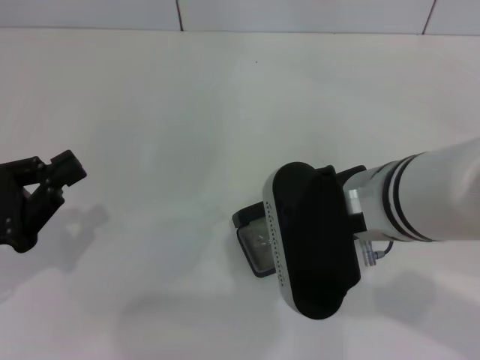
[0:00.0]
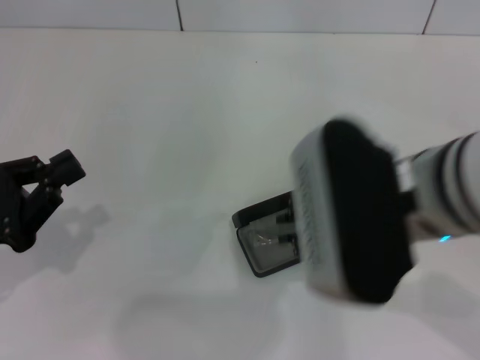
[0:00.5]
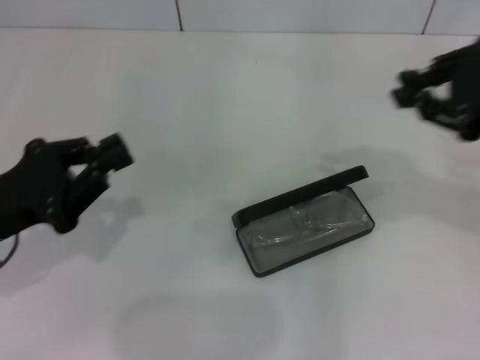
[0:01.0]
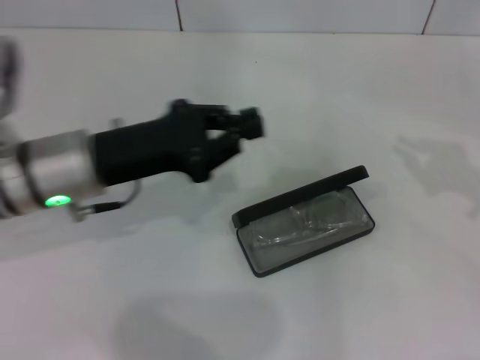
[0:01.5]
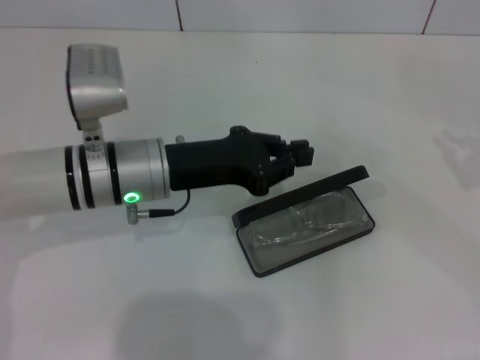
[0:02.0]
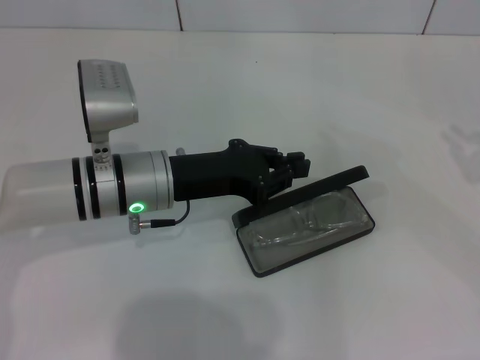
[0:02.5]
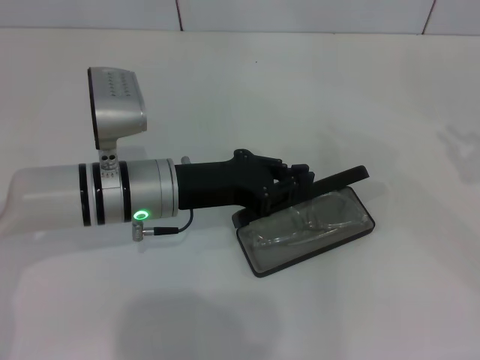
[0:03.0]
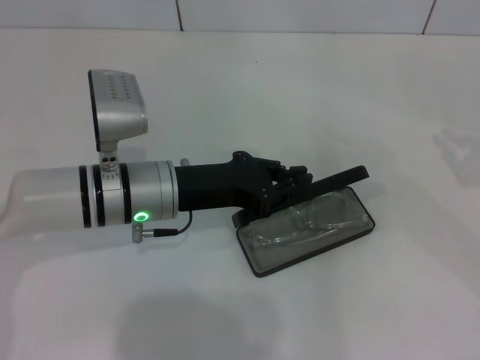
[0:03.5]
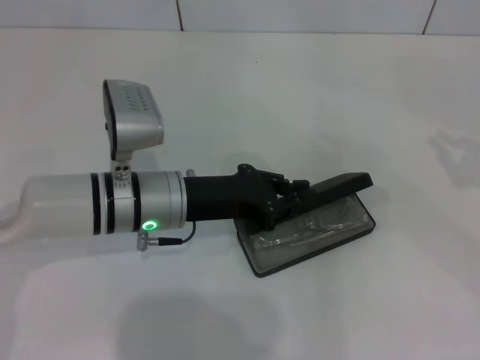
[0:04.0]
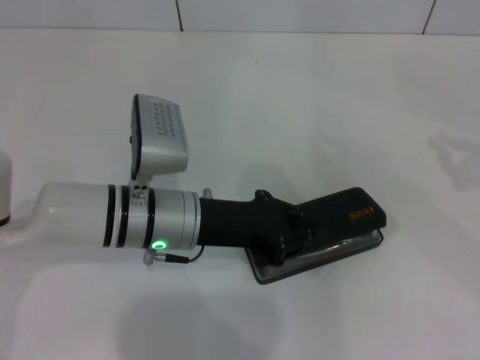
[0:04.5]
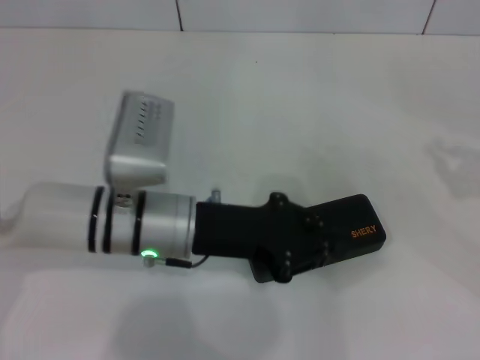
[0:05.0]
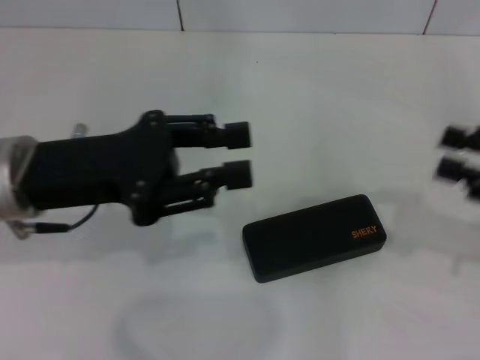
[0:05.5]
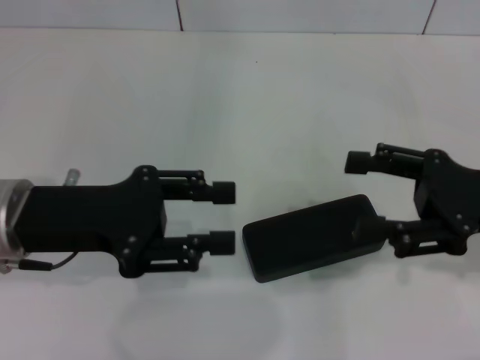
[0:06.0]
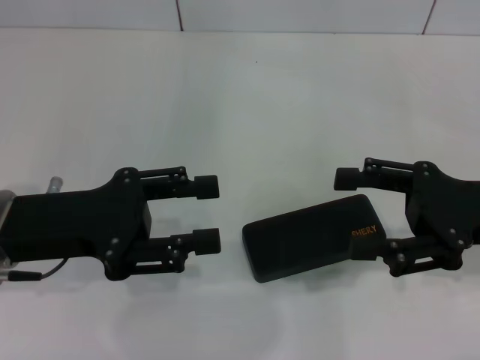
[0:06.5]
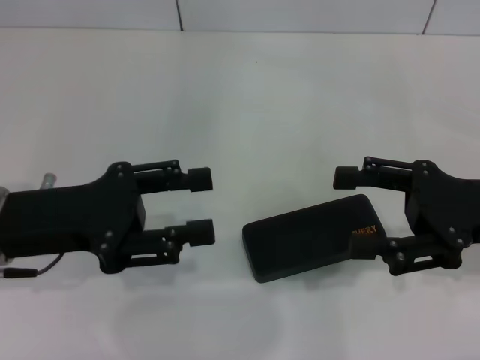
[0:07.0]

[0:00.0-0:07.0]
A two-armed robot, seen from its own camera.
Step, 0:00.0 to 0:04.5: Close the glasses case with your left hand.
0:00.0 to 0:02.0: The right gripper goes some 30 cm to the right. The left gripper moves to the right and forward, some 20 cm.
0:02.0 to 0:05.0: The grippers stay close to where they were, moving slightly.
0:05.0 to 0:07.0: The right gripper is displaced to the left by roughly 15 cm, and opens, while the left gripper moves to the left and upward, roughly 15 cm, and opens up.

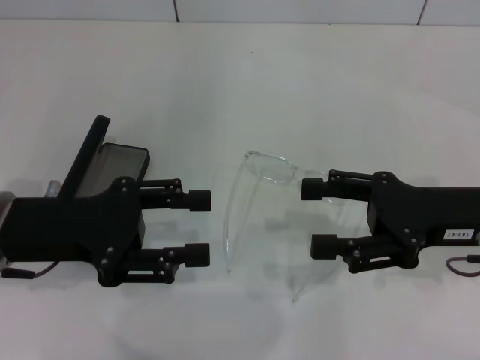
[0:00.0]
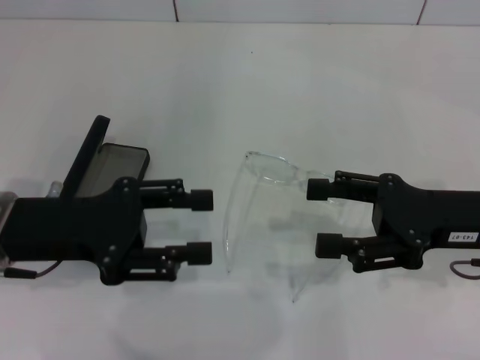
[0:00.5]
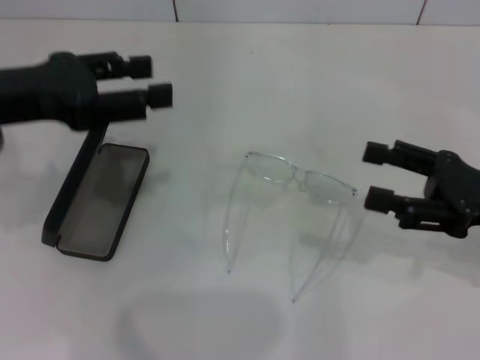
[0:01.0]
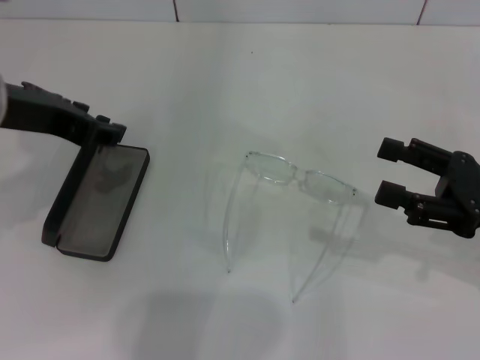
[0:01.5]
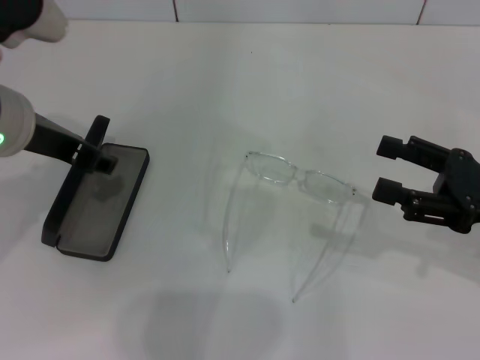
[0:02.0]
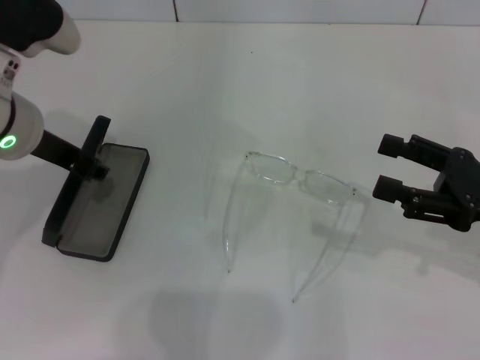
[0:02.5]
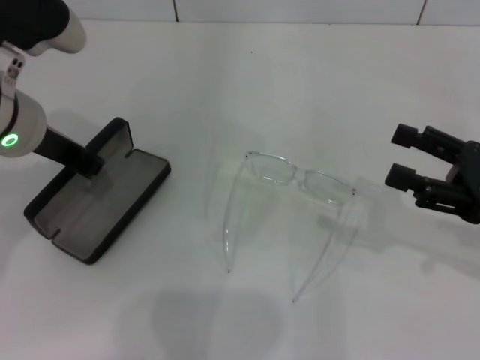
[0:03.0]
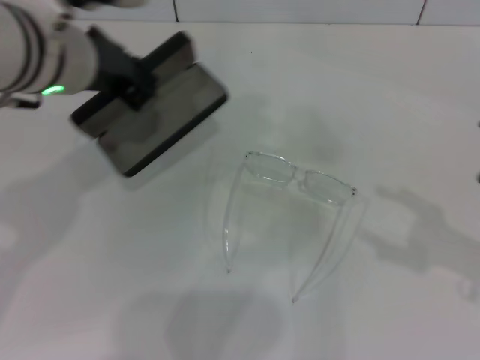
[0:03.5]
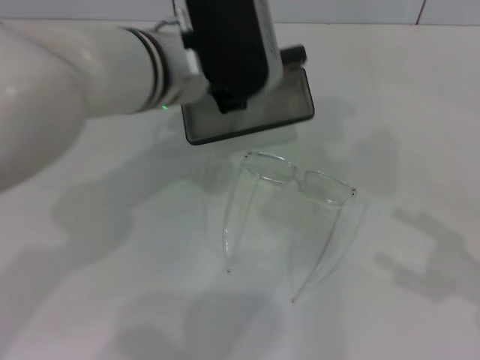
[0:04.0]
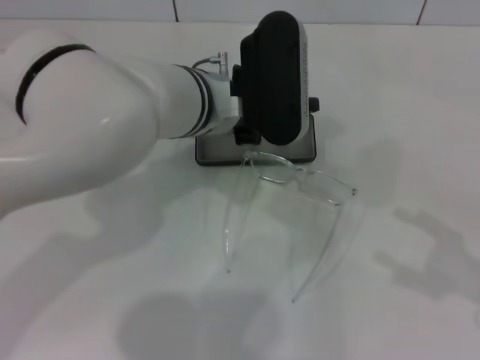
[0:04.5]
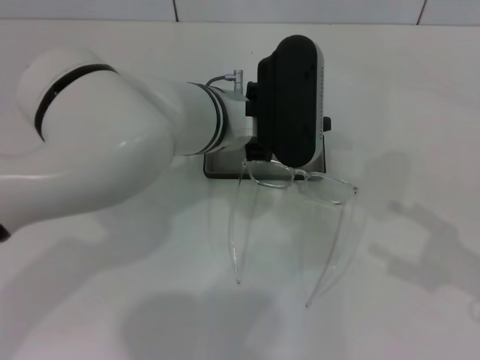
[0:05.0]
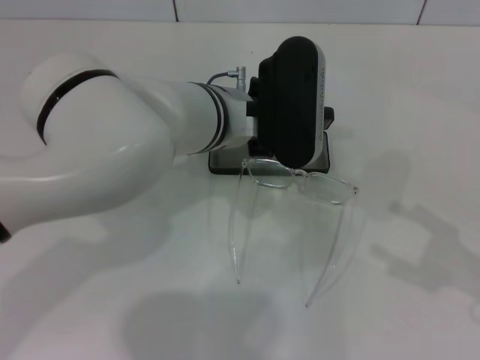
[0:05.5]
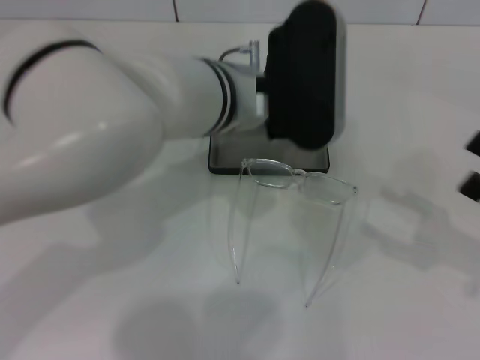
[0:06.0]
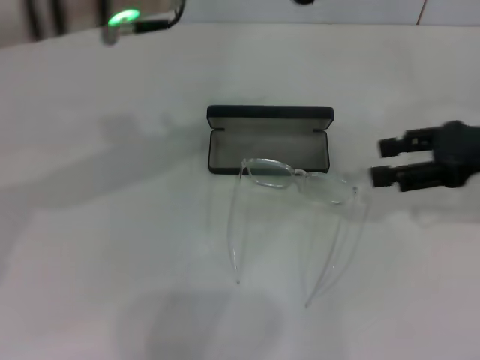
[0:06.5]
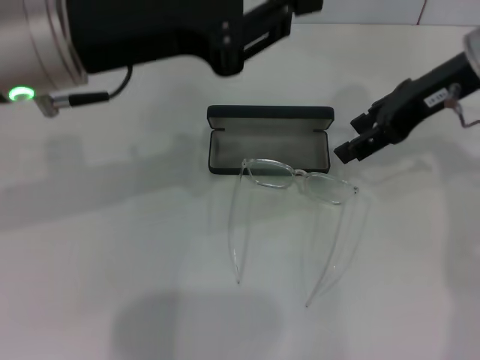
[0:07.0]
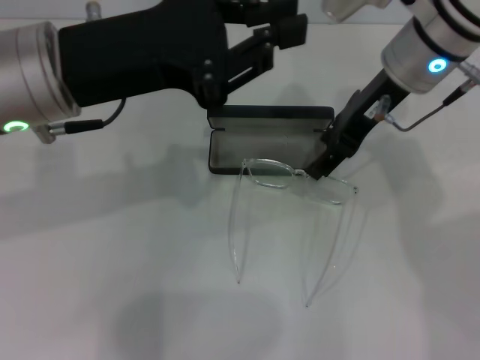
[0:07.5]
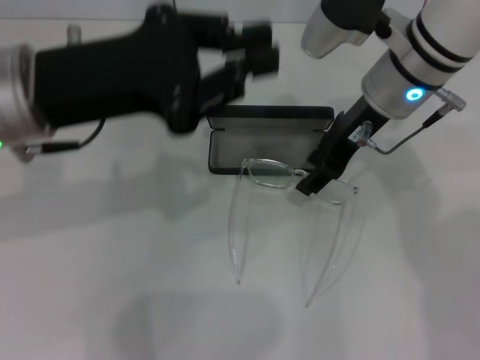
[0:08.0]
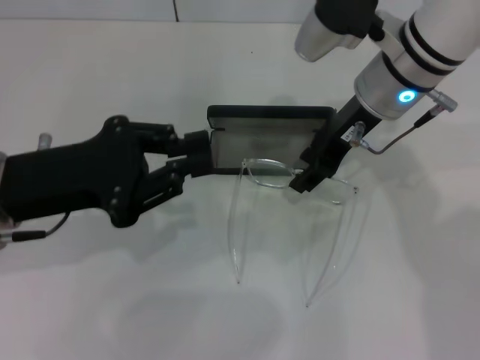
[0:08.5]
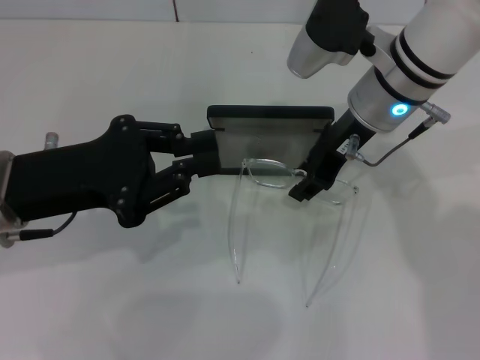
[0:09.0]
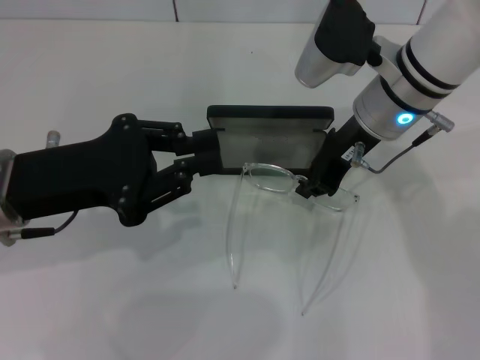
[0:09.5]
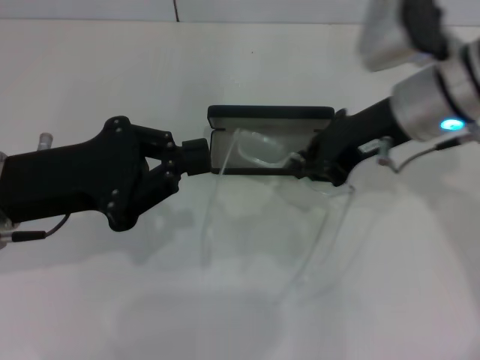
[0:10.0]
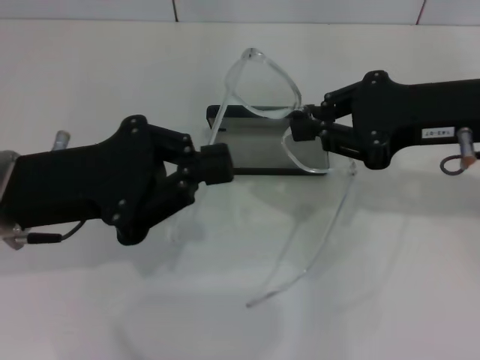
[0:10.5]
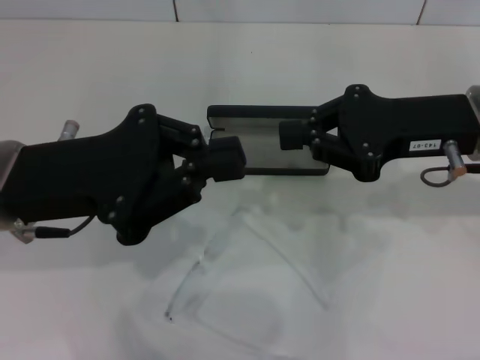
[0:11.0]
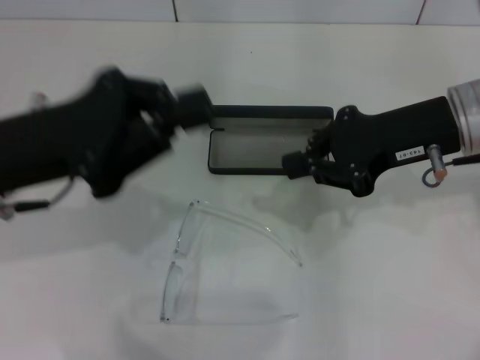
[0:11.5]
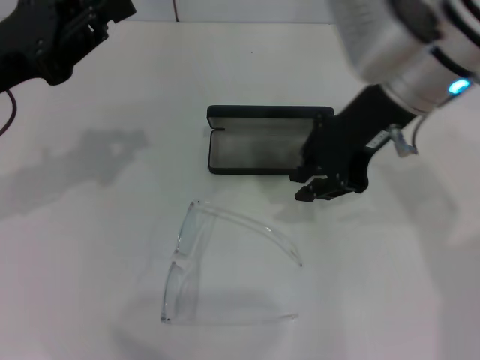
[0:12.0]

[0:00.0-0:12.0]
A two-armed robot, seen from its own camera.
Step, 0:00.0 to 0:03.0: Grab the glasses case with your left hand.
Step, 0:03.5 to 0:05.5: Place the glasses case in the center of the table with your left hand.
0:00.0 to 0:02.0: The right gripper is displaced to the right by approximately 5 cm. Meanwhile the left gripper is displaced upward and forward by approximately 10 cm.
0:02.0 to 0:04.0: The right gripper shifts approximately 10 cm backward and to the right; the left gripper goes approximately 15 cm to the right, and closes its fingers.
0:04.0 to 0:06.0: The left gripper moves roughly 5 cm, and opens up.
0:06.0 to 0:08.0: The right gripper moves to the left and forward, about 30 cm; the left gripper shifts roughly 15 cm to the left, and closes up.
0:08.0 to 0:10.0: The left gripper moves downward, approximately 5 cm, while the right gripper ends up approximately 5 cm from where it was, and closes.
0:10.0 to 0:12.0: The right gripper travels to the right and back again, about 5 cm each way; the left gripper moves some 5 cm.

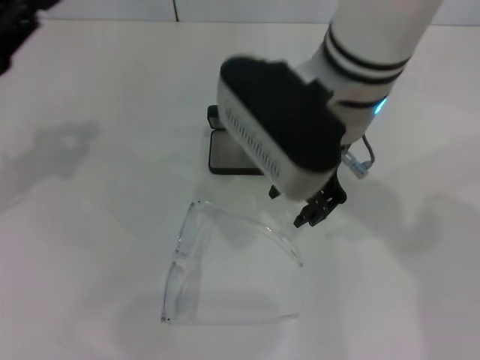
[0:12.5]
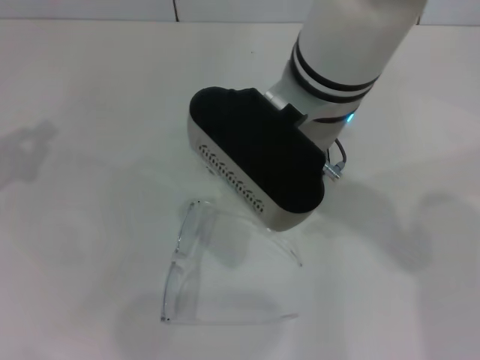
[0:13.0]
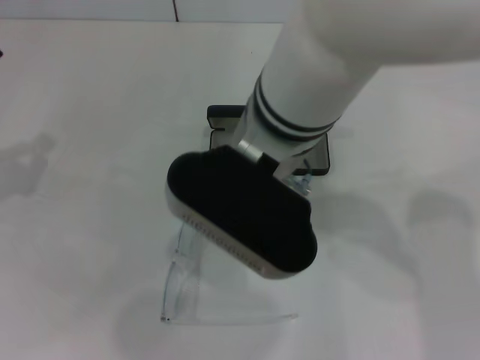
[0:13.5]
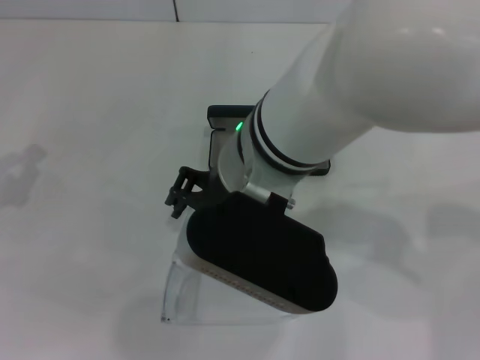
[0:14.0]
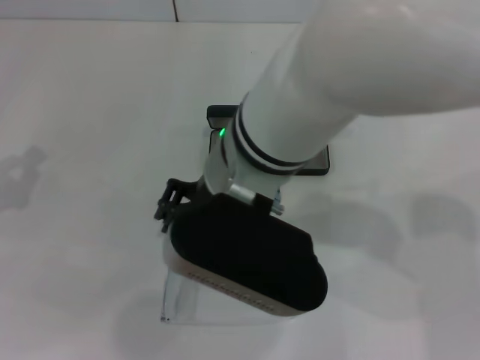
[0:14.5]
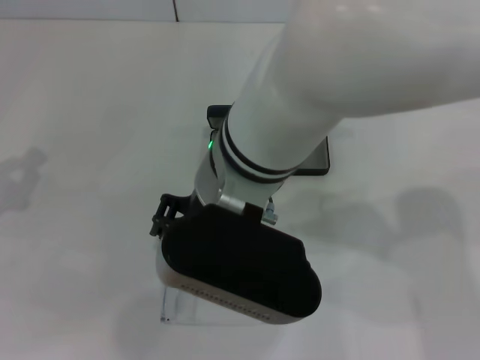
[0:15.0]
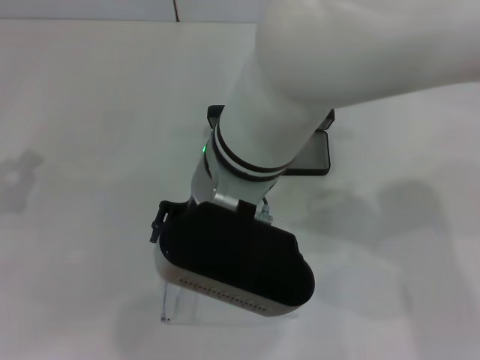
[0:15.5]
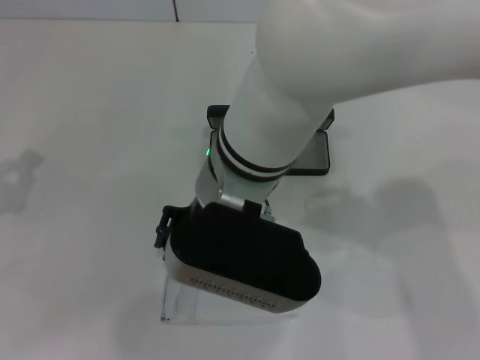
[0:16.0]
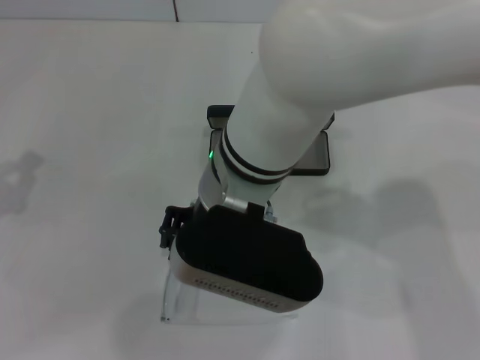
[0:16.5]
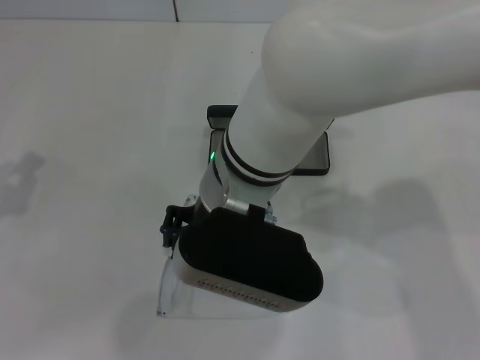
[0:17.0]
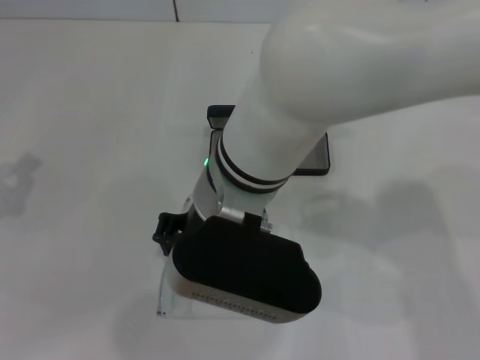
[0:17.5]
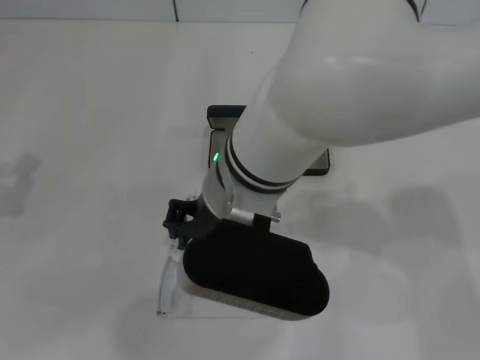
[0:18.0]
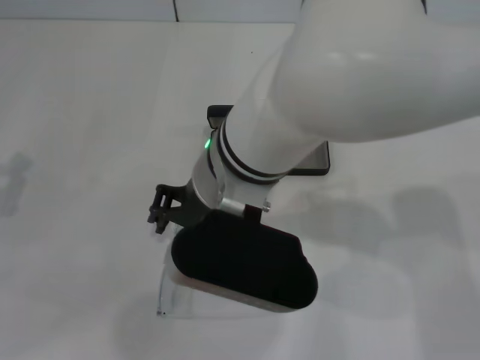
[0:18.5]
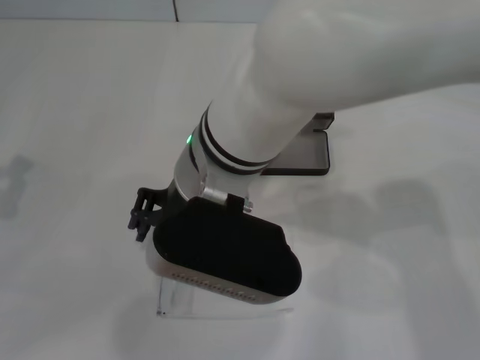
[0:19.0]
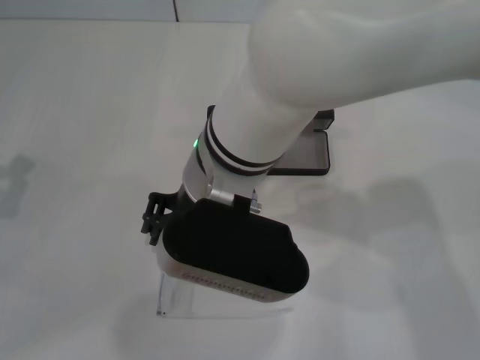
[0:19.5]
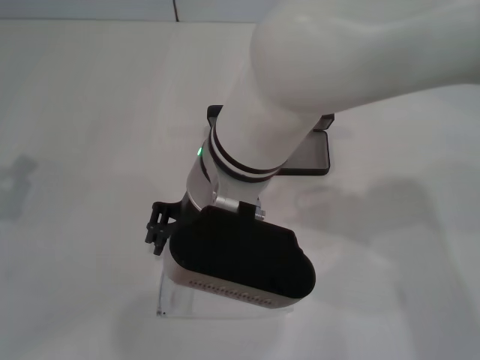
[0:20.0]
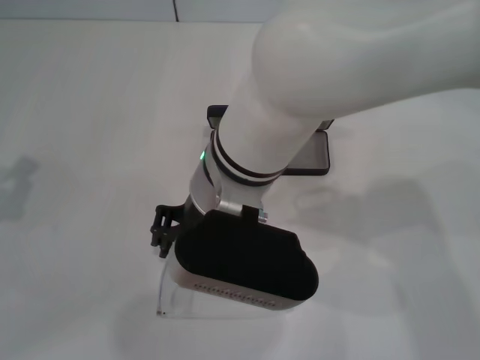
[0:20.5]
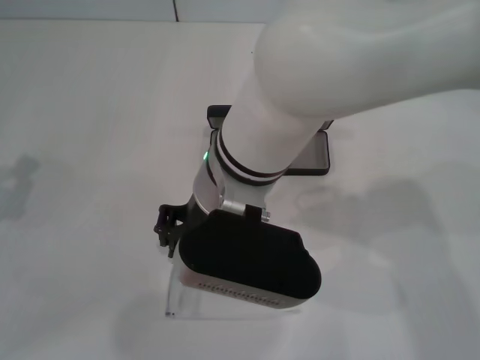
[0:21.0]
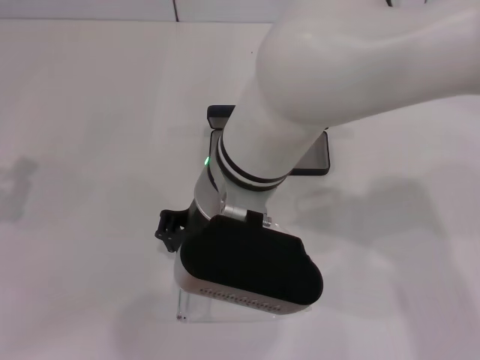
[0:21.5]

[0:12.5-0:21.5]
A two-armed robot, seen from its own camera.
0:12.5 to 0:14.5: The left gripper is displaced backward and downward by approximately 10 cm, while the right gripper moves to the left and backward, roughly 10 cm.
0:14.5 to 0:19.5: The grippers move only a little.
0:19.5 to 0:21.5: The right gripper closes its fingers.
